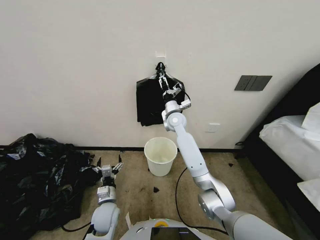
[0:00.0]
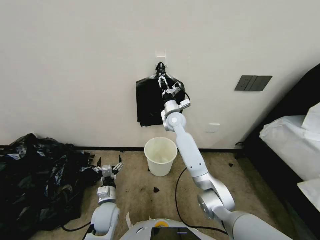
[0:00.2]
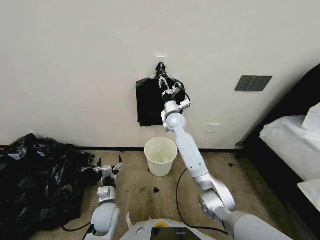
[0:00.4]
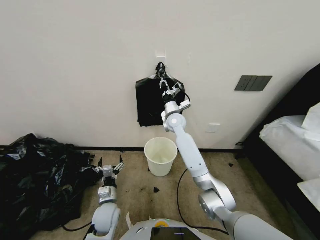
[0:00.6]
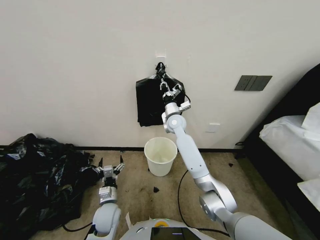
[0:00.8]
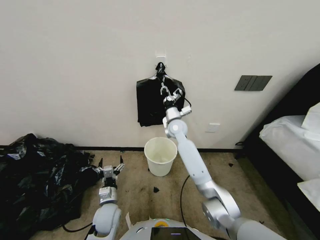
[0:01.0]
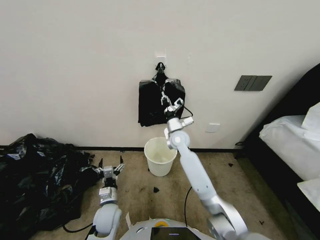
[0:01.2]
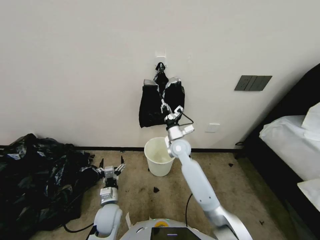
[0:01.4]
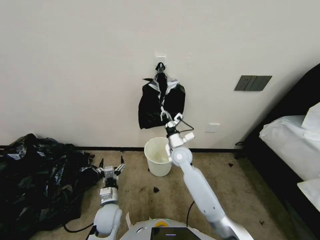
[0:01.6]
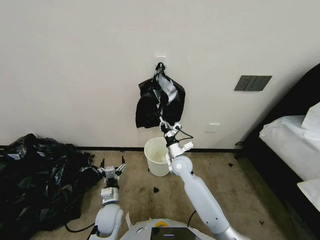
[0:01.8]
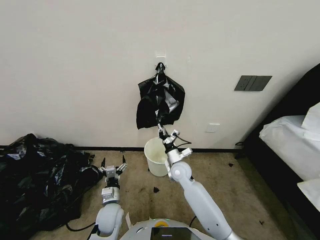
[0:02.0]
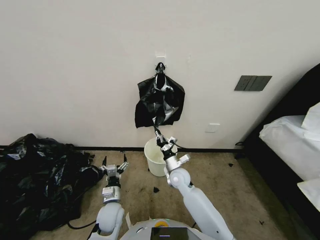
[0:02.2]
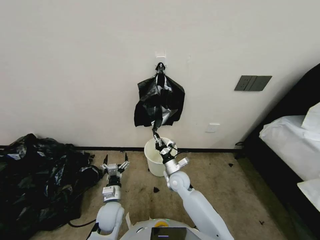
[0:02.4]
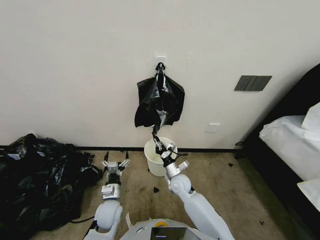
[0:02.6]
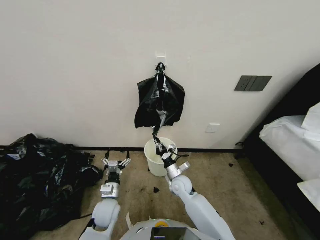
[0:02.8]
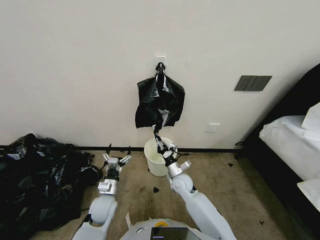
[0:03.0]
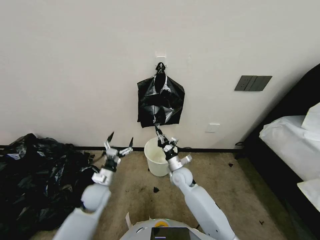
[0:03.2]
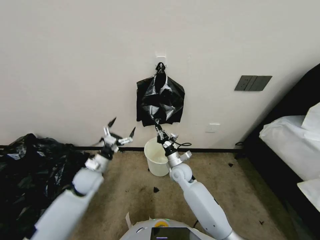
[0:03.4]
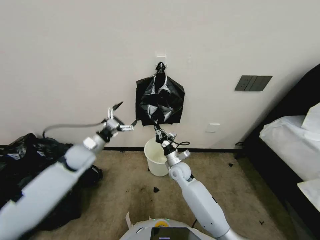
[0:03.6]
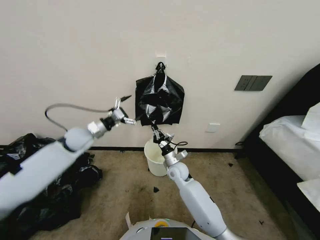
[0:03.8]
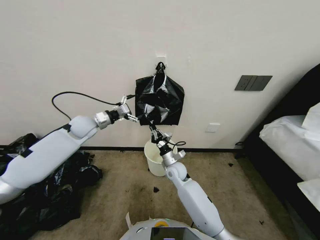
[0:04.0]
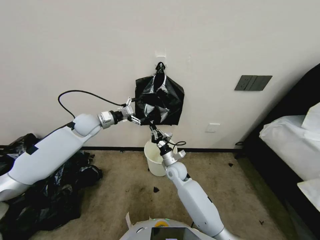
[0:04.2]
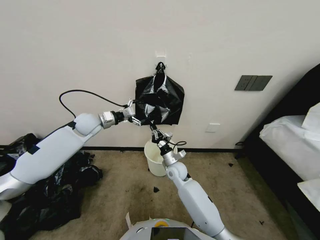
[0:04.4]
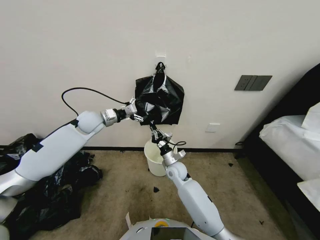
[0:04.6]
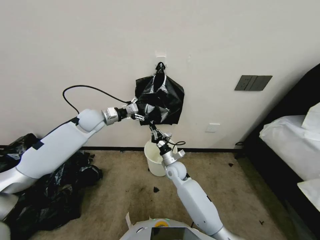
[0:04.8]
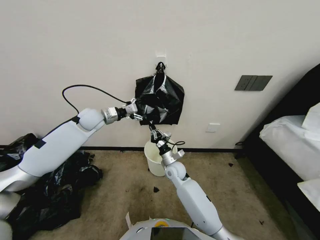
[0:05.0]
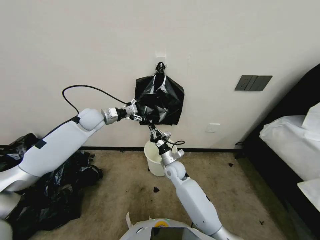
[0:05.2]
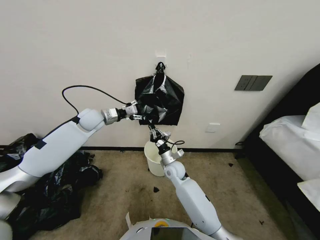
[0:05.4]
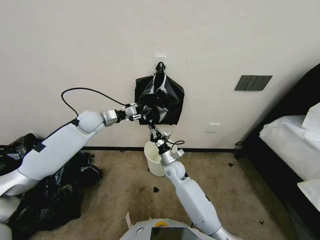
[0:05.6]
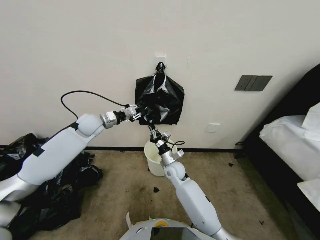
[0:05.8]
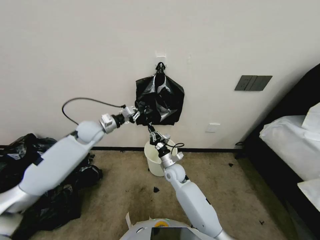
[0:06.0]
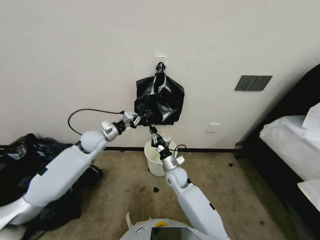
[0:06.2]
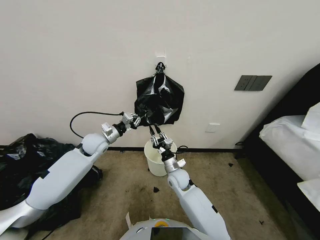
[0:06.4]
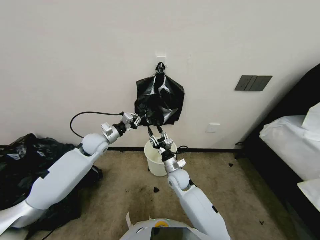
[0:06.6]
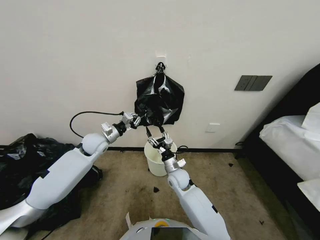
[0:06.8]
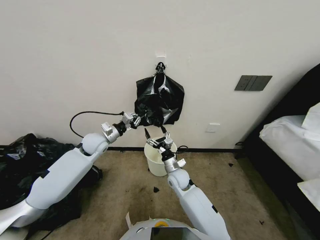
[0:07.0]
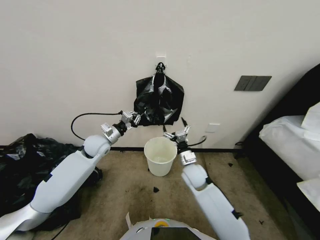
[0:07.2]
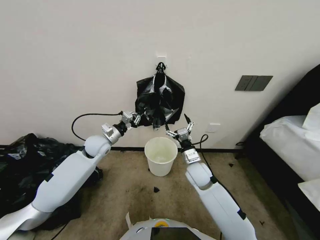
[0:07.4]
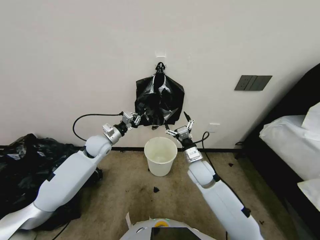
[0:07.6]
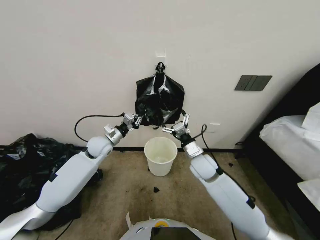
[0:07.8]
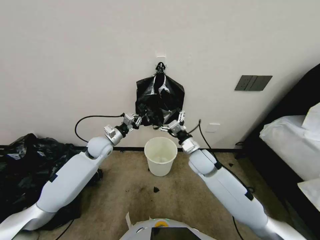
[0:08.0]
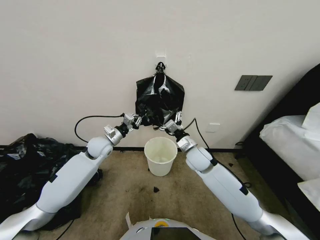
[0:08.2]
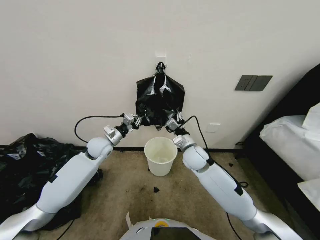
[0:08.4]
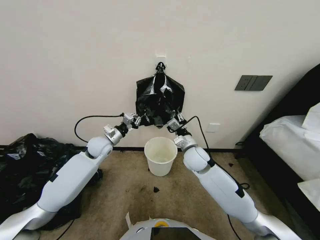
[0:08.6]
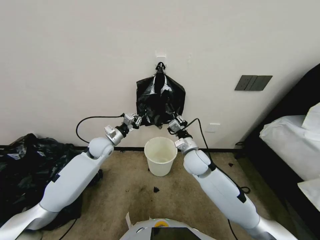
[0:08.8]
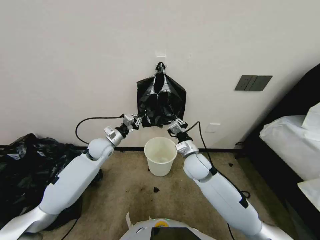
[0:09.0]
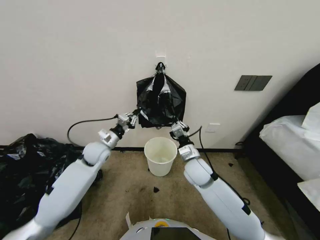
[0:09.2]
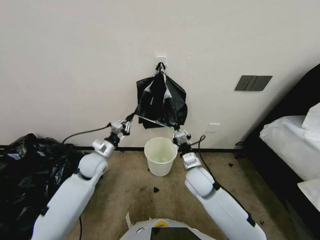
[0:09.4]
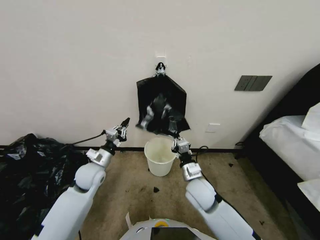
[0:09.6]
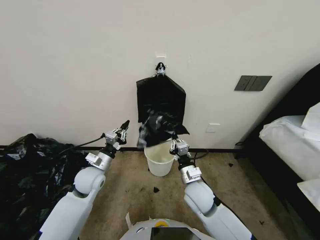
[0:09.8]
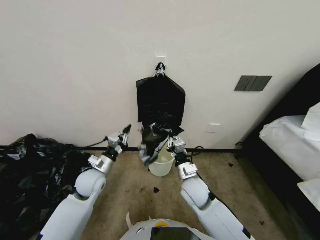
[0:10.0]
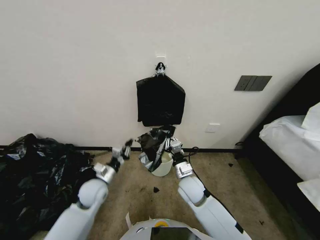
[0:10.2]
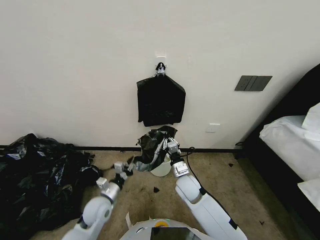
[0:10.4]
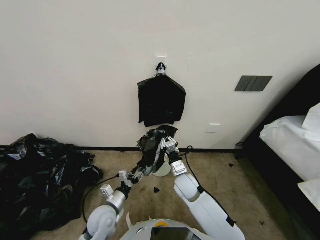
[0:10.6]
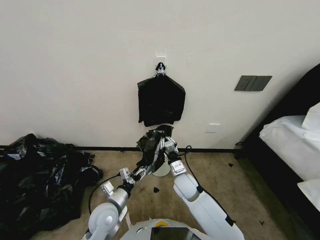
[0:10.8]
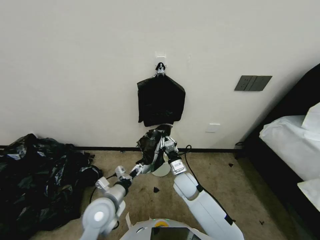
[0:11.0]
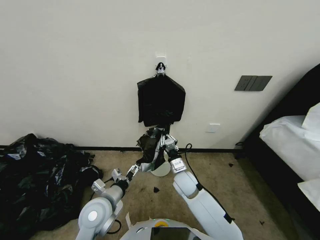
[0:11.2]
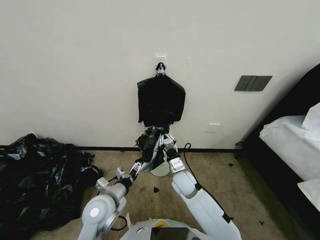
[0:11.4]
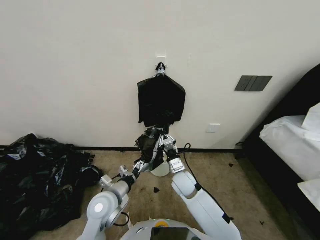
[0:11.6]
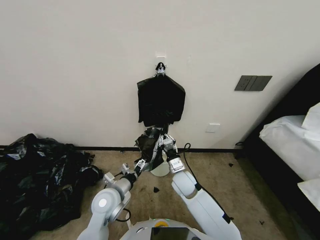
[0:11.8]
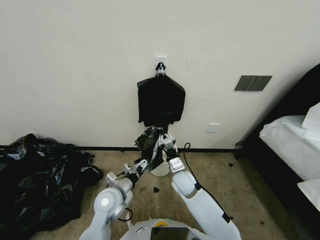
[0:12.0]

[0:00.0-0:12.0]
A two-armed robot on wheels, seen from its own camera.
Task of the whole recording: Place a trash bag onto the trash bin.
0:00.0 to 0:01.6: The right gripper goes some 15 cm backward and downward, and closes.
0:01.6 to 0:03.0: The right gripper moves downward and backward, roughly 15 cm.
0:03.0 to 0:04.4: The left gripper travels forward and upward by some 35 cm. The right gripper shifts approximately 5 cm forward.
0:04.4 to 0:06.0: The left gripper closes up.
0:06.0 to 0:07.6: The left gripper is displaced downward by approximately 5 cm, while the right gripper travels to the right and upward by some 10 cm, and opens up.
0:07.6 to 0:09.0: The right gripper moves some 5 cm, and closes.
0:09.0 to 0:10.4: The left gripper moves backward and downward, about 20 cm. Meanwhile the right gripper travels downward and backward by some 10 cm.
0:10.4 to 0:12.0: The left gripper heads to the right and upward, covering approximately 10 cm, and opens.

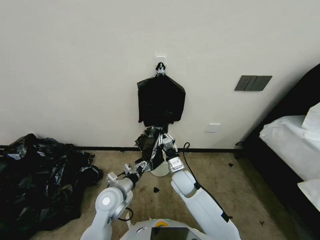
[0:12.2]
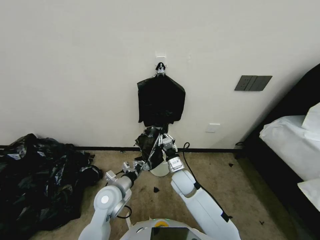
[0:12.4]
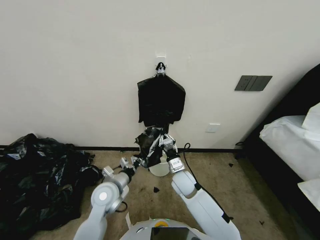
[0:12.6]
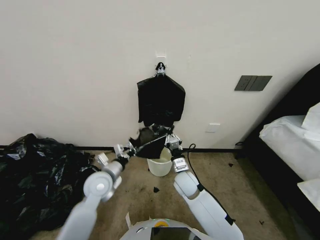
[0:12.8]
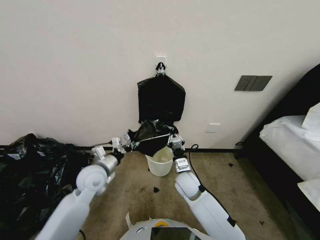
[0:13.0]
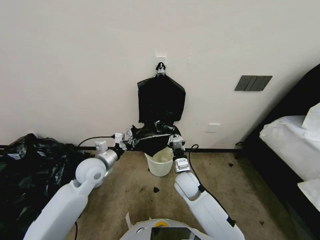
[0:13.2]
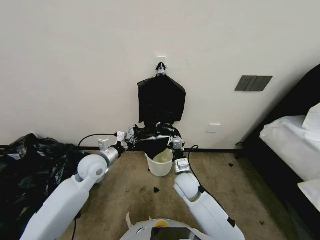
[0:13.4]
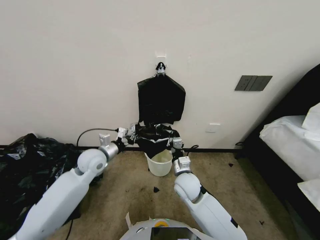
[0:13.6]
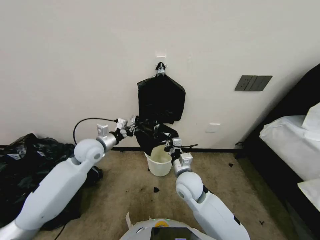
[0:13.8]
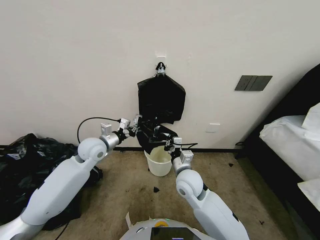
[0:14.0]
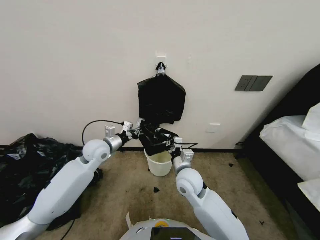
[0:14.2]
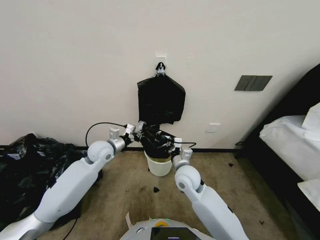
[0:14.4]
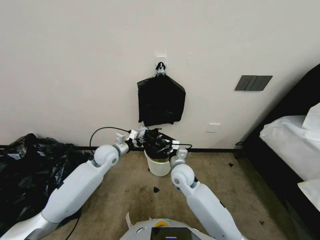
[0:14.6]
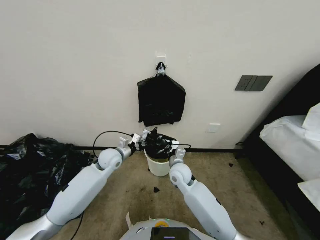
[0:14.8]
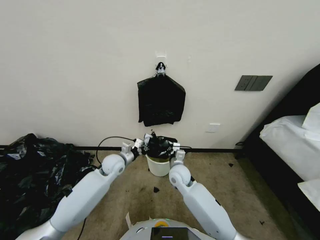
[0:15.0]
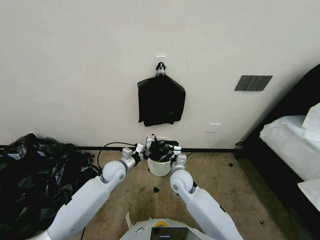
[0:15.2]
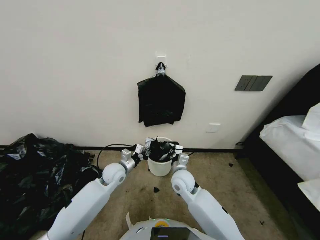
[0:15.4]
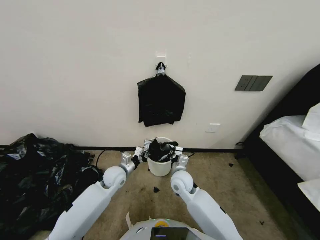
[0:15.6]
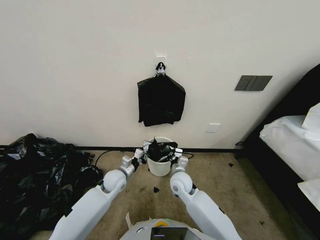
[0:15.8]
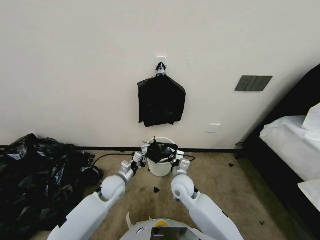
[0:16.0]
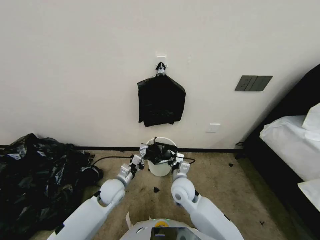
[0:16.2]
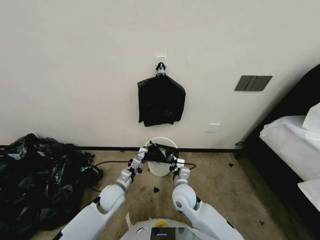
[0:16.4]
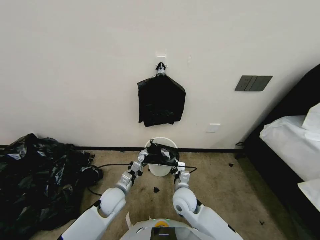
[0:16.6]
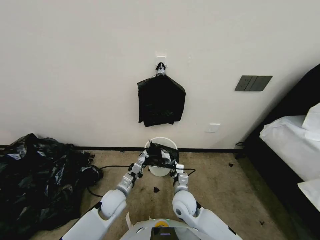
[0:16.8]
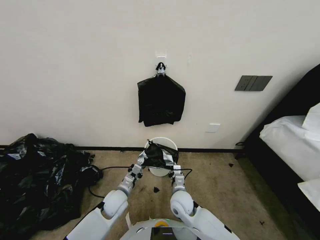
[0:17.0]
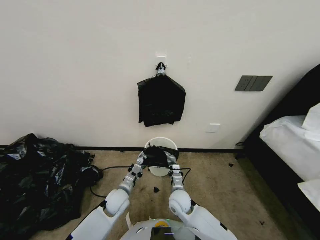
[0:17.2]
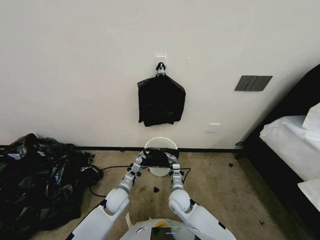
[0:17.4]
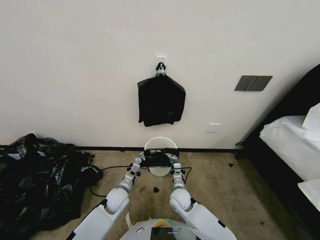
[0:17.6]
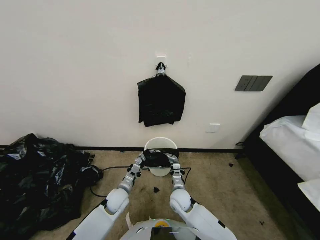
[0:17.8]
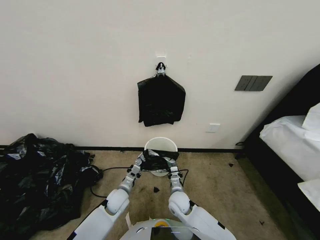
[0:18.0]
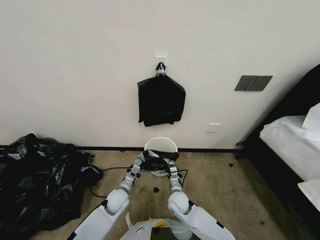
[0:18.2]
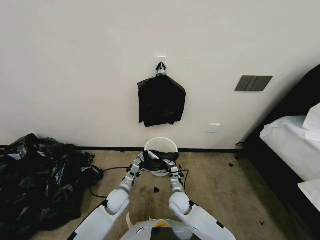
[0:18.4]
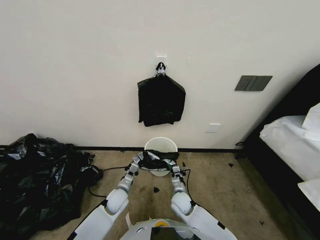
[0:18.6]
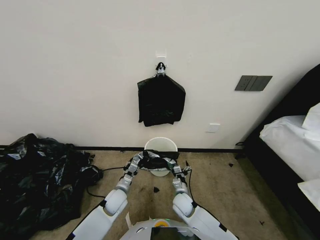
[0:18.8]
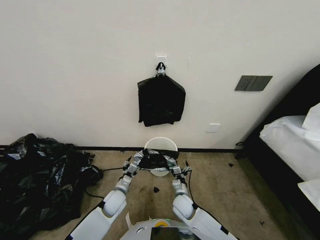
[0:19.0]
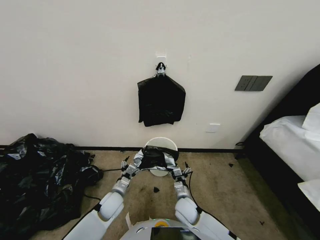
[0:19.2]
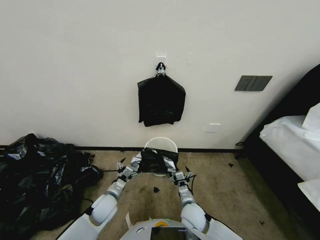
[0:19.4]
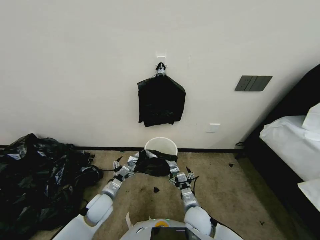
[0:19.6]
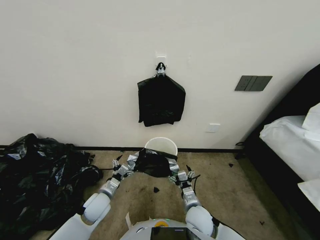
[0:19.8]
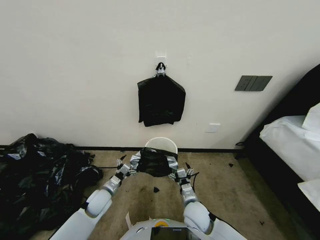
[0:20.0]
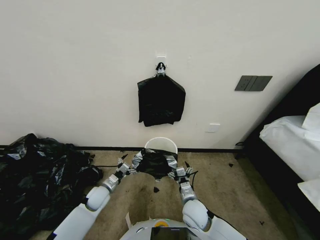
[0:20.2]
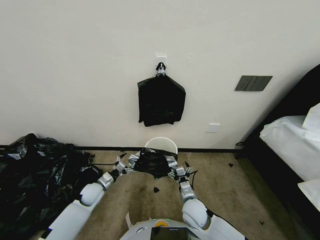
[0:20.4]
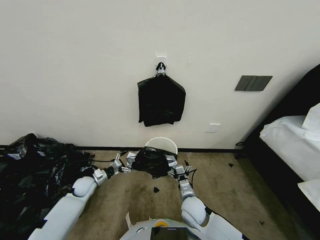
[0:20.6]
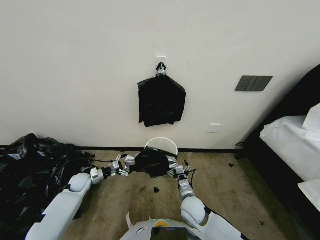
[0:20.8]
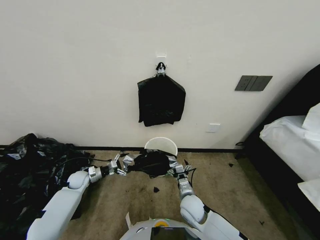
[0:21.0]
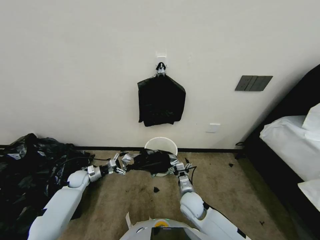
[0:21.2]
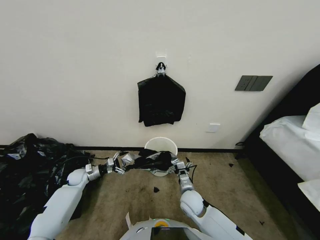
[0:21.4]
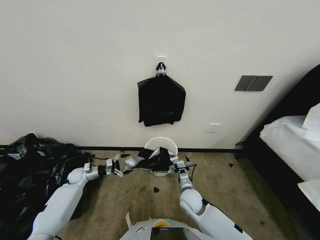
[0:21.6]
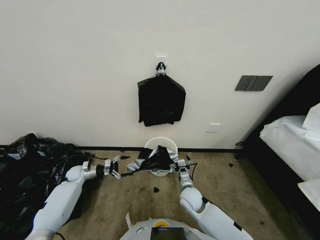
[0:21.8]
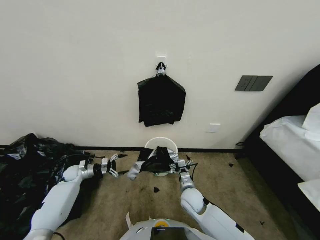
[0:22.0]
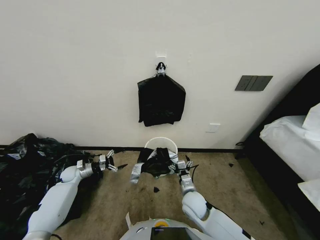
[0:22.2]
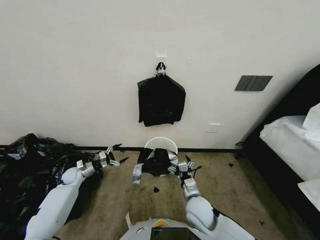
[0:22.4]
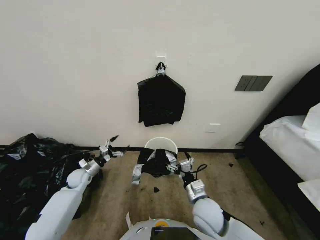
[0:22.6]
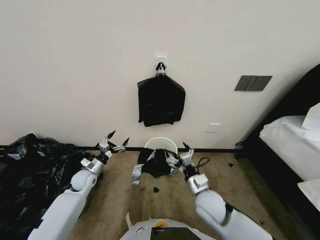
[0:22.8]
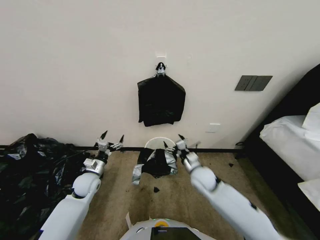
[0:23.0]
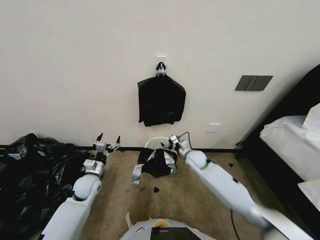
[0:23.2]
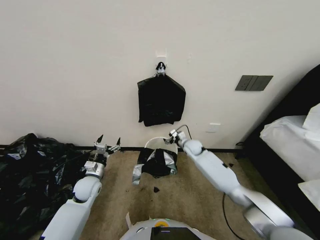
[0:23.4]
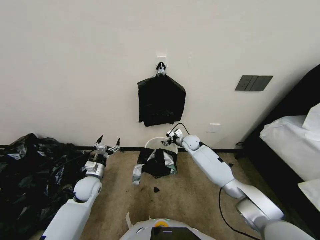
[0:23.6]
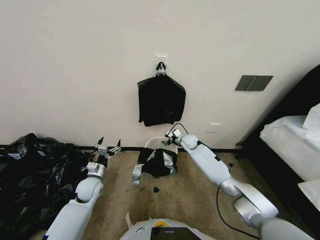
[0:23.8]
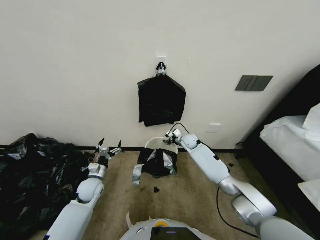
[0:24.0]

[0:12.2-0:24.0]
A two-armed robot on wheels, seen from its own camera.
Task of the whole recording: Place a trash bag onto the trash bin.
0:12.2 to 0:13.6: The left gripper goes some 15 cm forward, upward and to the left, and closes.
0:13.6 to 0:15.2: The left gripper travels downward and to the right by roughly 10 cm.
0:15.2 to 0:16.6: The left gripper heads backward and downward, covering approximately 10 cm. Meanwhile the right gripper travels backward by approximately 5 cm.
0:16.6 to 0:18.2: Both grippers move downward, some 5 cm.
0:18.2 to 0:19.6: The left gripper changes place by roughly 5 cm, and opens; the right gripper travels backward by roughly 5 cm, and opens.
0:19.6 to 0:21.0: The left gripper heads to the left and forward, covering roughly 20 cm.
0:21.0 to 0:22.6: The right gripper shifts roughly 5 cm upward.
0:22.6 to 0:24.0: The right gripper heads forward, covering some 35 cm; the left gripper shifts about 15 cm to the right and backward.
